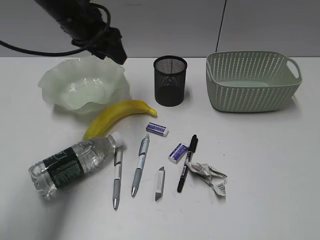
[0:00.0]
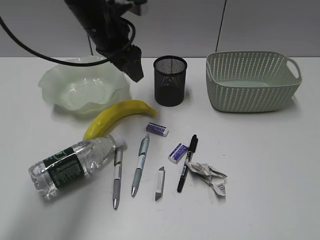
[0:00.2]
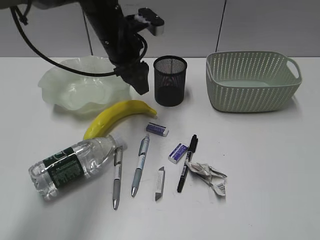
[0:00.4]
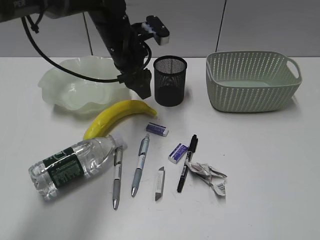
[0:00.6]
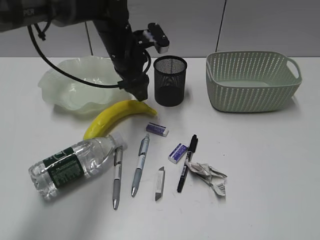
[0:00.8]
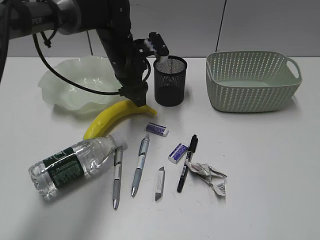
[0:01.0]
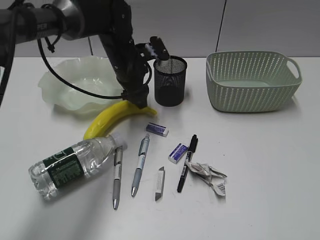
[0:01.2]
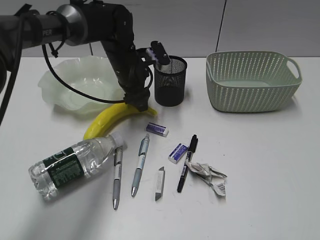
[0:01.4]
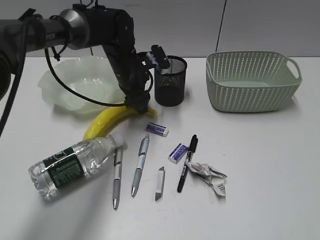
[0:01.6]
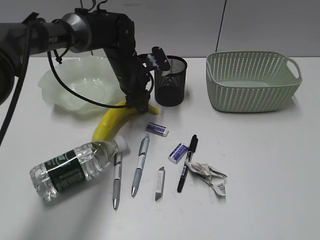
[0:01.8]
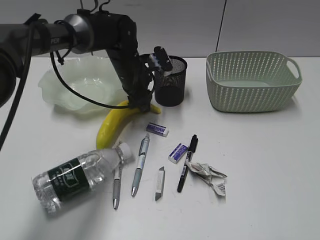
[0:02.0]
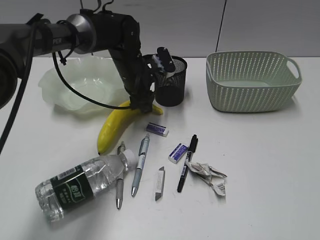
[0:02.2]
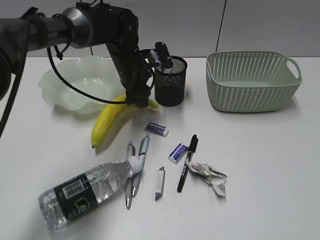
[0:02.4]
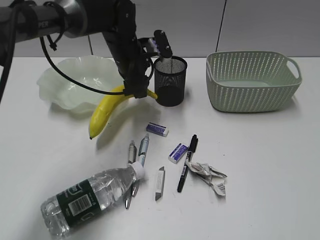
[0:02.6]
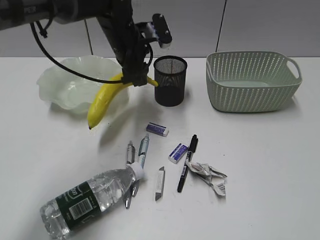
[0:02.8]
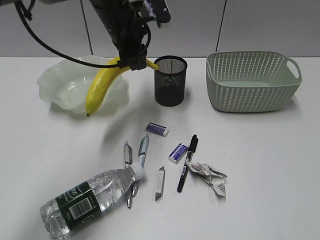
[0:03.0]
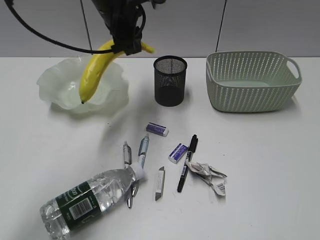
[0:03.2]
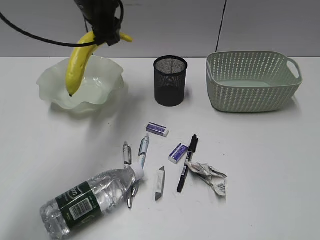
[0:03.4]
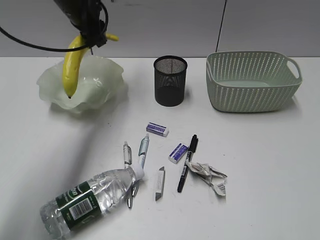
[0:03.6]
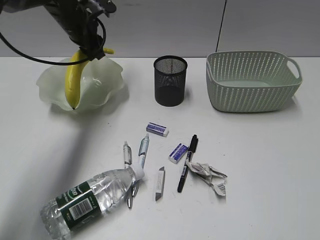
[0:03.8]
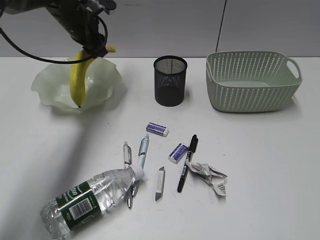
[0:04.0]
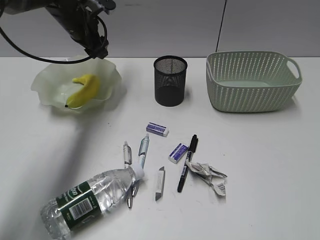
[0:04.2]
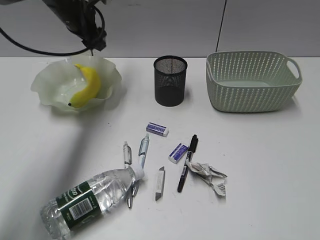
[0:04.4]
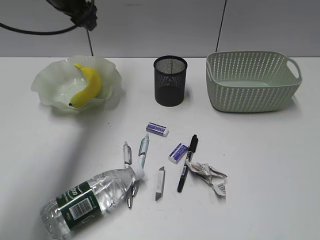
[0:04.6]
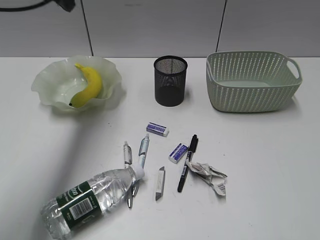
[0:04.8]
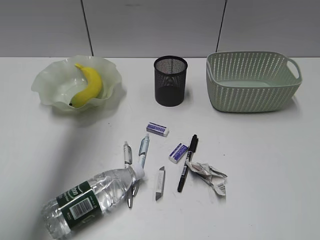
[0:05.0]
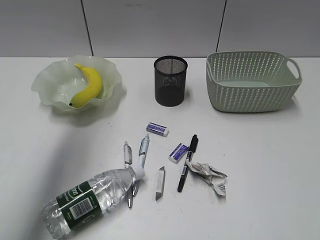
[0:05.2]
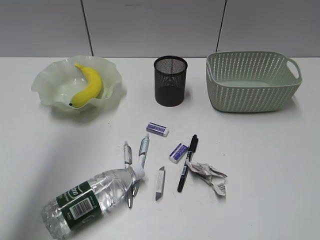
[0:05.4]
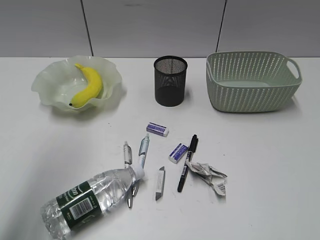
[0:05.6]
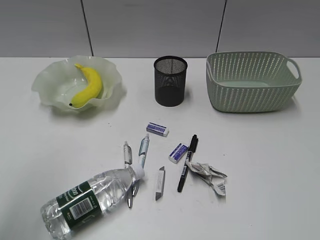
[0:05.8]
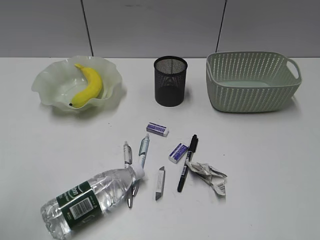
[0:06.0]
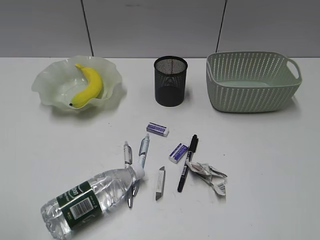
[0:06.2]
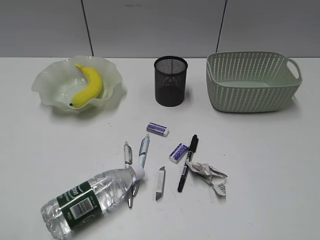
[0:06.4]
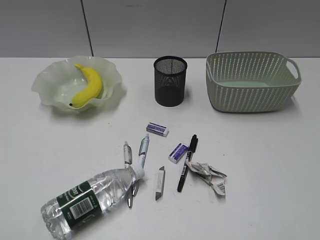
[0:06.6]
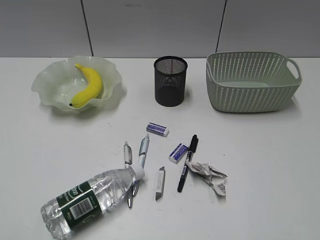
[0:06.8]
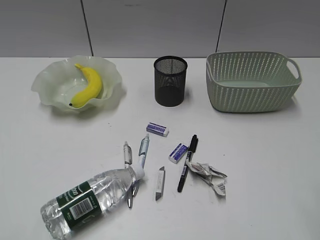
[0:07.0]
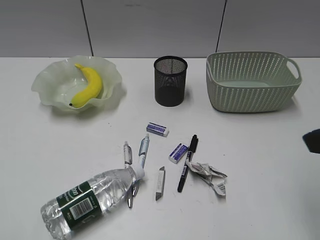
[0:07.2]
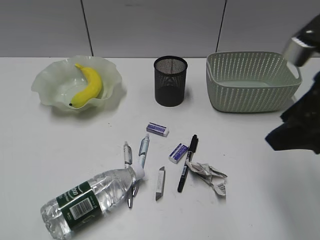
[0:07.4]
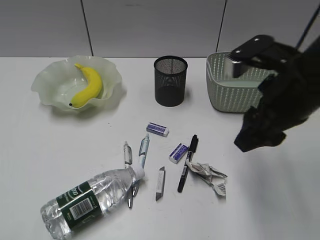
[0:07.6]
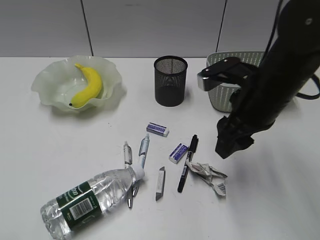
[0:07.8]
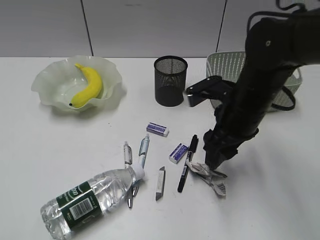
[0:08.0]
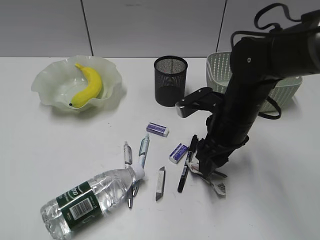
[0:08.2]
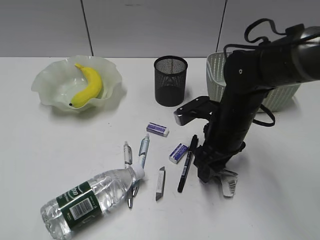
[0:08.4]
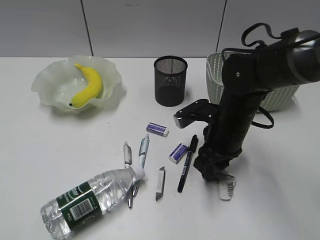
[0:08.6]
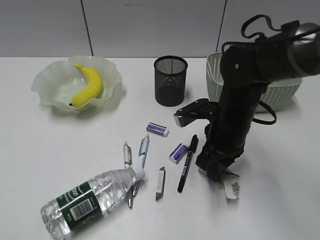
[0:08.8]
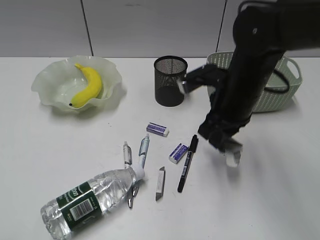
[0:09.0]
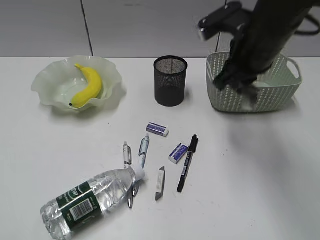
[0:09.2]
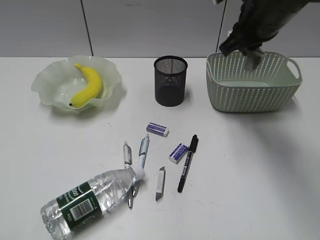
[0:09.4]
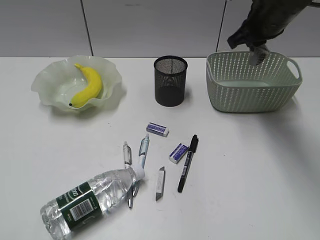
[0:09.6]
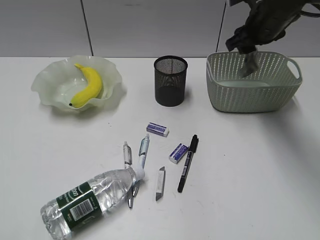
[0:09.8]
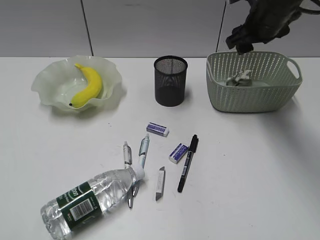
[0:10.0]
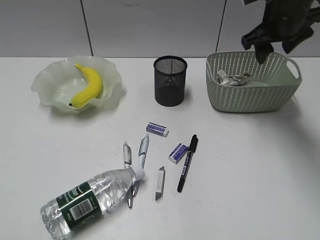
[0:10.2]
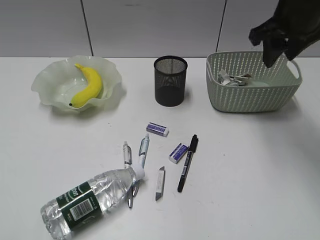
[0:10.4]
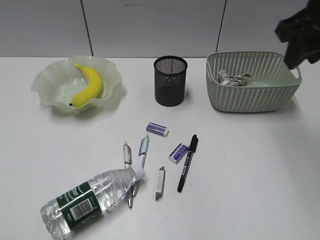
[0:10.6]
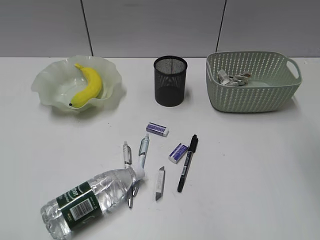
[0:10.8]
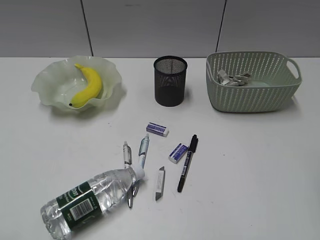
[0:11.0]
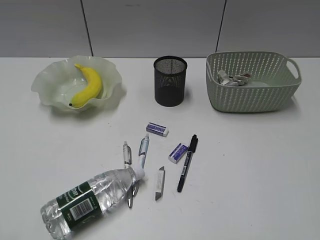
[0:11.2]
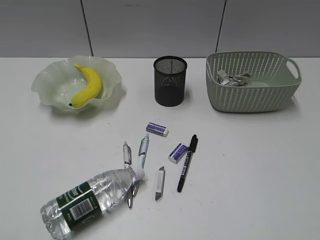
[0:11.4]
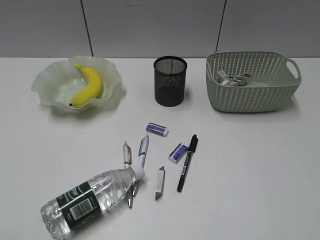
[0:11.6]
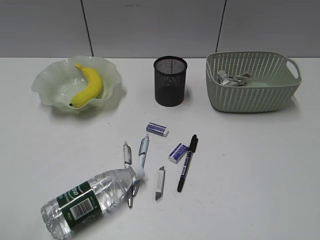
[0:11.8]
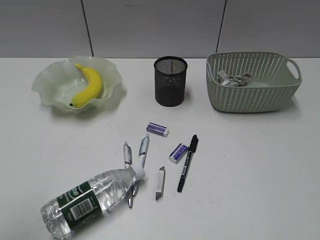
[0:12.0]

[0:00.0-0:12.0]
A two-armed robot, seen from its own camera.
Step, 0.0 to 1.8 s: Grasp the banana with left gripper.
Step, 2.0 to 4.0 s: Place the banana in the plate with left gripper.
Step, 4.2 to 8.6 s: Grasp the waste paper with right gripper.
Step, 8.8 to 10.0 s: Place the waste paper in the basket with right gripper.
0.0 to 1.6 s: The left gripper travels downward and to the right by some 15 cm.
1.6 to 3.0 s: The left gripper shifts approximately 10 cm upward.
3.0 to 4.4 s: The left gripper moves to the left and forward, roughly 10 cm, and opens up.
4.4 to 6.0 s: The left gripper heads backward, covering some 40 cm.
6.0 to 7.6 s: The right gripper shifts approximately 30 cm forward and to the left. Meanwhile the left gripper is displaced backward and downward by roughly 10 cm.
7.6 to 9.0 s: The right gripper goes roughly 10 cm forward and downward, and closes up.
9.0 to 10.4 s: The right gripper travels upward, to the right and forward by roughly 15 cm, and opens.
10.4 to 12.0 s: The left gripper travels forward by some 5 cm. Meanwhile the right gripper goes roughly 40 cm backward.

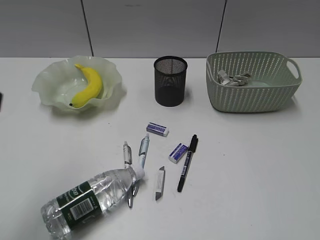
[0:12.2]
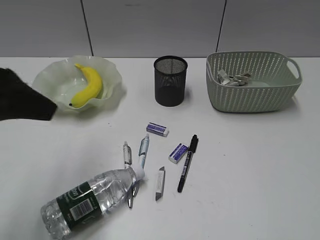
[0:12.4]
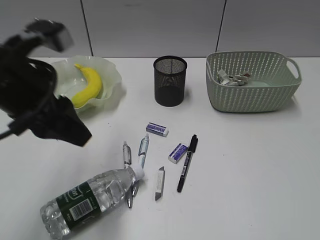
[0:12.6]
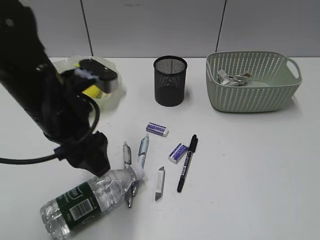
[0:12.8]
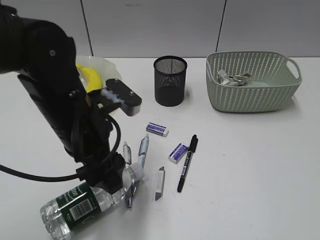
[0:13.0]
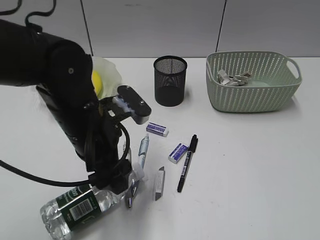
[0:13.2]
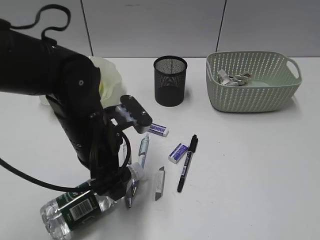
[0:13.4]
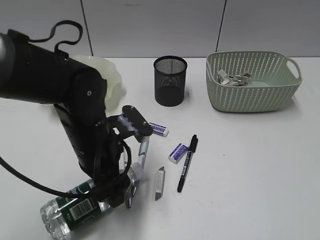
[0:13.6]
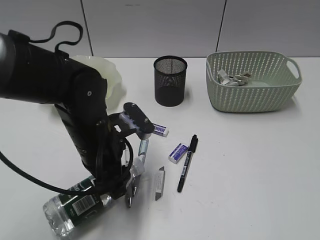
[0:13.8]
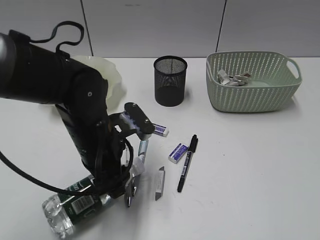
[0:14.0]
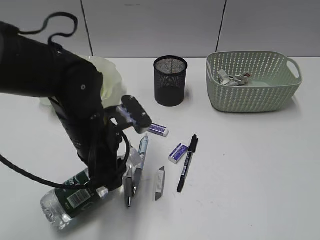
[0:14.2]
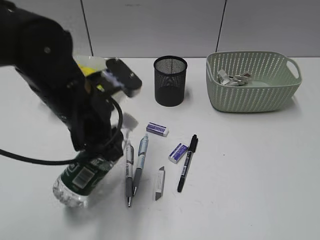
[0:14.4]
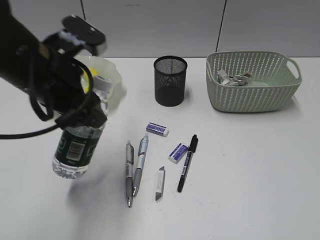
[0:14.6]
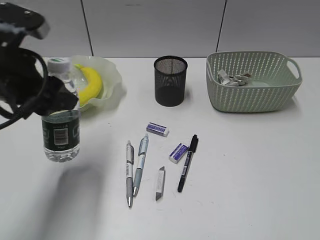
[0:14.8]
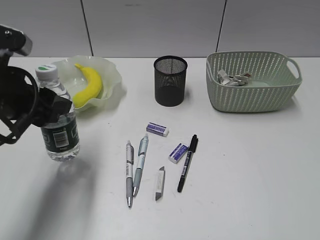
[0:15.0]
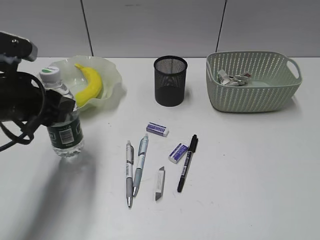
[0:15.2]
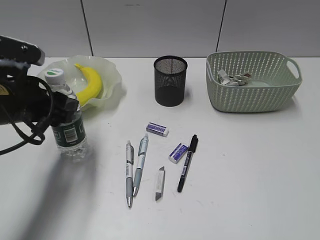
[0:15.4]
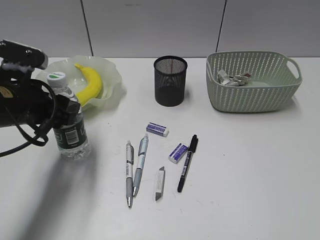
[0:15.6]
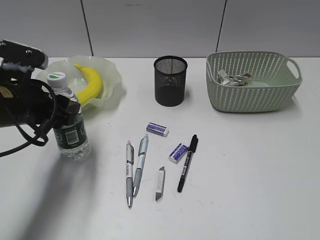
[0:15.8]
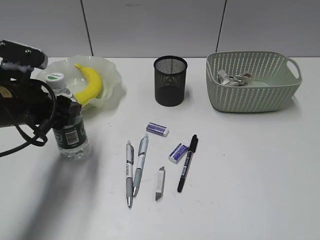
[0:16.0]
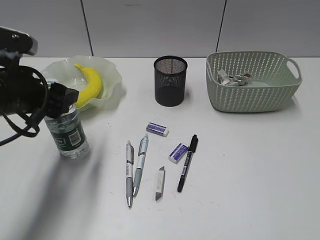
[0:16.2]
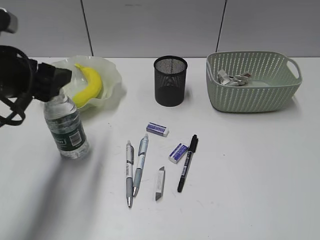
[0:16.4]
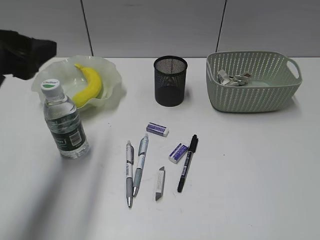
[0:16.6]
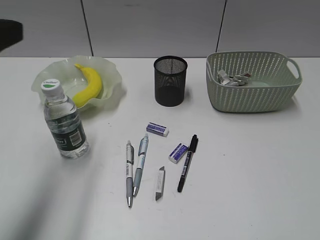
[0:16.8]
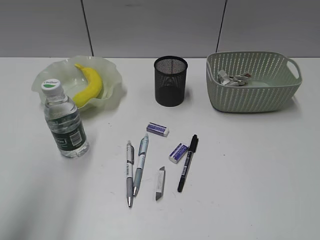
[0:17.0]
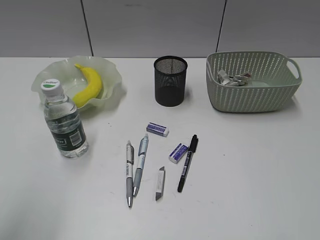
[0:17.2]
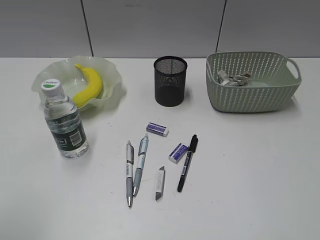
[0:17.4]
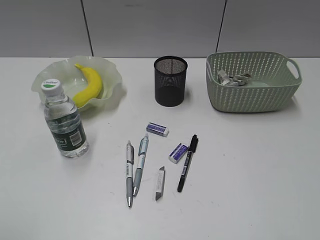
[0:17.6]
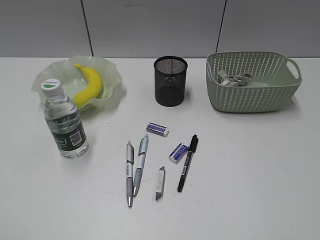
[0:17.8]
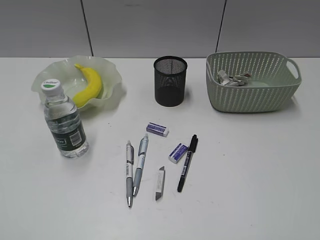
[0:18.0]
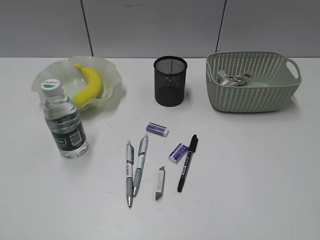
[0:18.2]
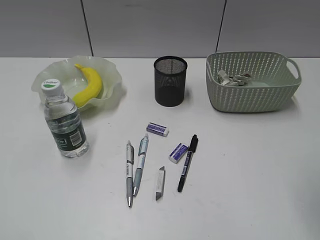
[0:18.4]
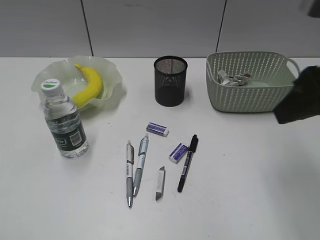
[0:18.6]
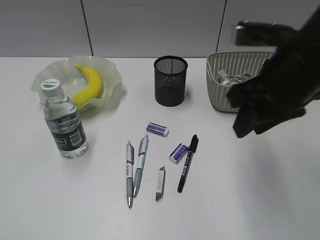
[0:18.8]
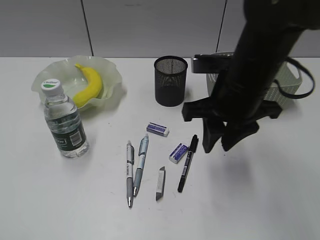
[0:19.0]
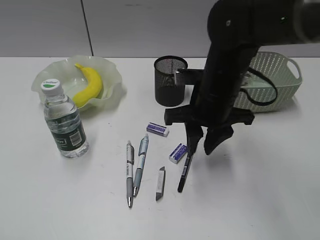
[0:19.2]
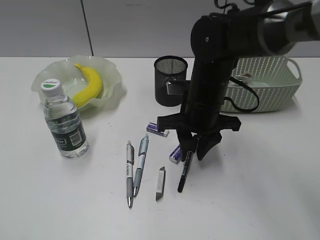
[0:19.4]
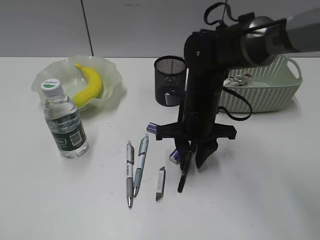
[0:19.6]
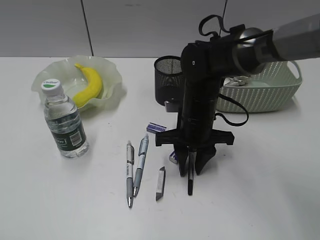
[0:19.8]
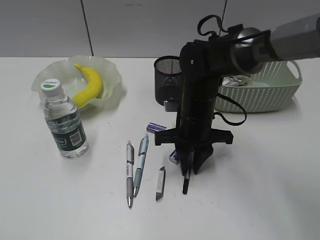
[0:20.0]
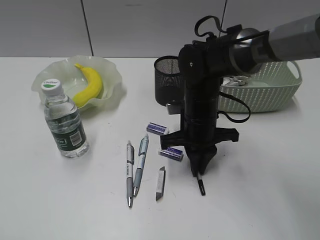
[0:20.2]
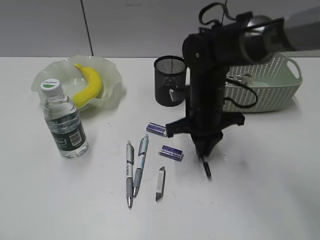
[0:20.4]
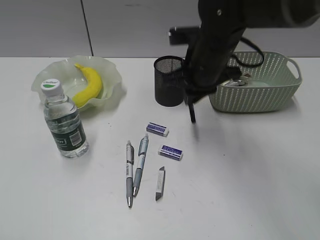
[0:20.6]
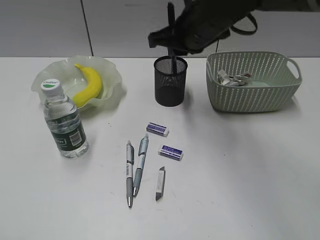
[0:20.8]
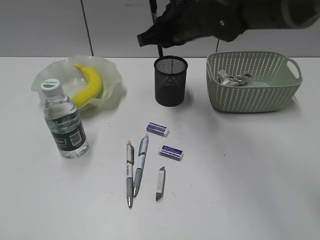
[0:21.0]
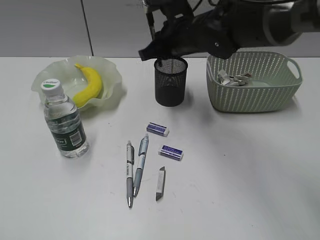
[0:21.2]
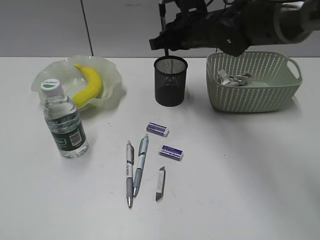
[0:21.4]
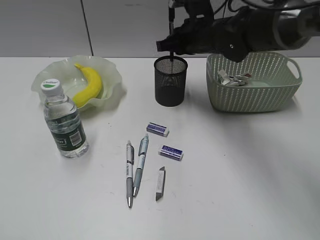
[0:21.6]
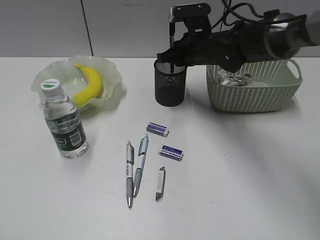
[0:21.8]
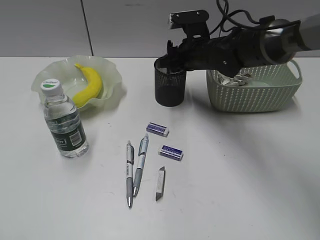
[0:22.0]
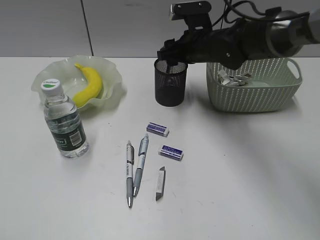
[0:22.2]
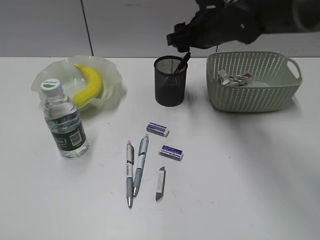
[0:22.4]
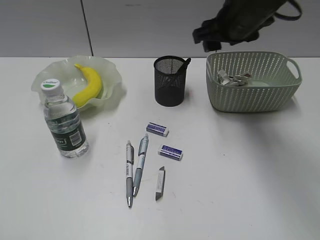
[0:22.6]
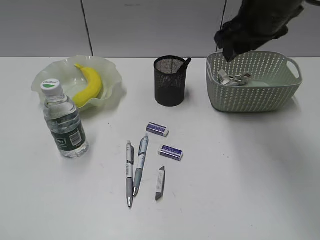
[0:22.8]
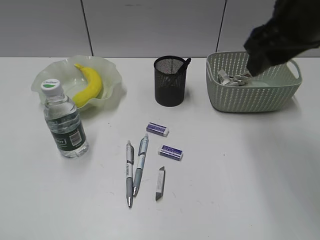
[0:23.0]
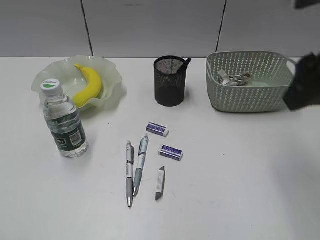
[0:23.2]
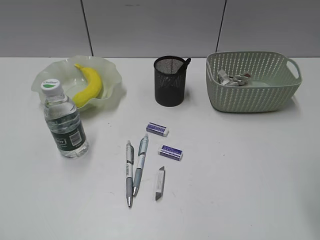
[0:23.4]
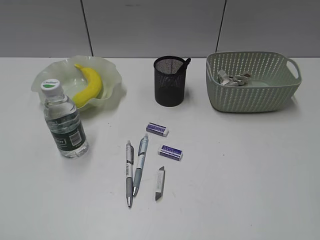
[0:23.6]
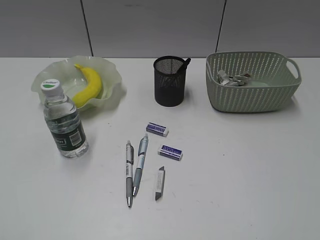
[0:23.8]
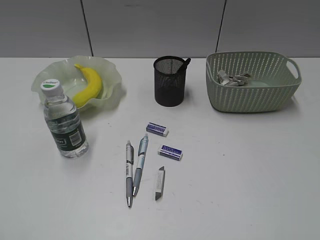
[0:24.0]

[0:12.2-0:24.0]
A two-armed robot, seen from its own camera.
Step, 14.0 to 16.4 s: Stand the bottle with left gripper.
Step, 16.6 to 20.0 s: Grasp the black pen with right gripper.
Step, 20.2 to 22.2 s: Place the black pen in pen holder with right gripper.
12.2 to 13.6 s: The left gripper shifts some 25 cm downward, to the right and forward, and opens its fingers.
13.6 to 15.2 s: The left gripper goes some 15 cm to the left and upward.
15.2 to 16.6 s: The left gripper shifts some 10 cm upward.
16.6 to 18.2 s: The left gripper heads backward, covering roughly 25 cm.
18.2 to 19.6 s: The right gripper shifts some 40 cm forward, to the left and downward.
19.6 to 21.0 s: The right gripper moves upward and forward, approximately 15 cm, and closes up.
21.0 to 22.6 s: The right gripper goes some 10 cm to the right, moves some 10 cm downward and comes back, and opens up.
22.6 to 24.0 s: The right gripper heads backward and to the right, covering about 40 cm.
